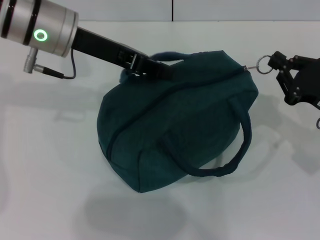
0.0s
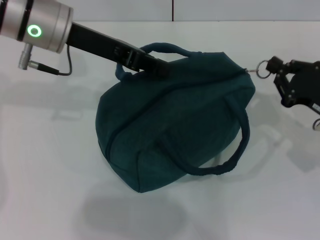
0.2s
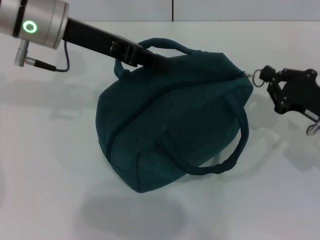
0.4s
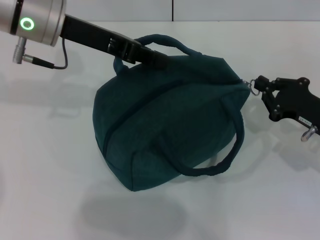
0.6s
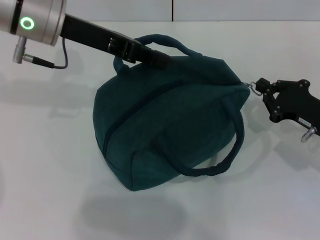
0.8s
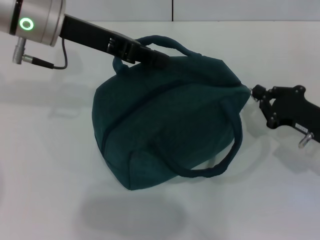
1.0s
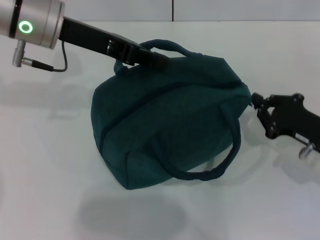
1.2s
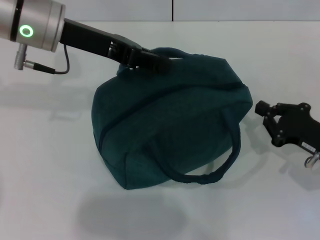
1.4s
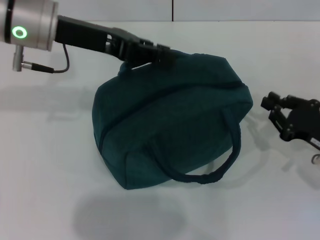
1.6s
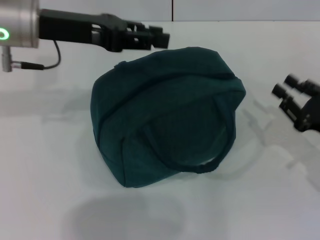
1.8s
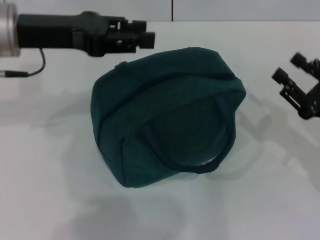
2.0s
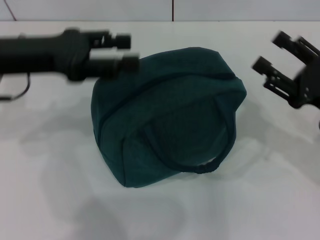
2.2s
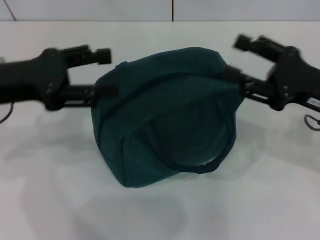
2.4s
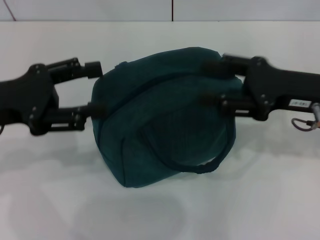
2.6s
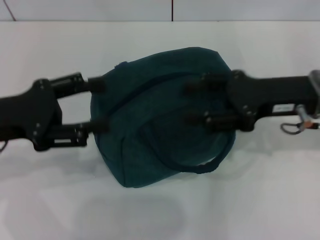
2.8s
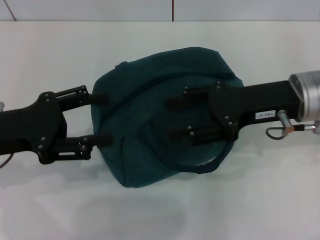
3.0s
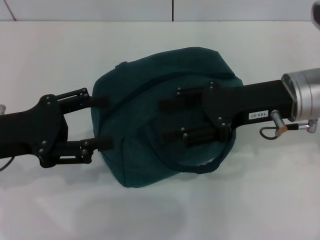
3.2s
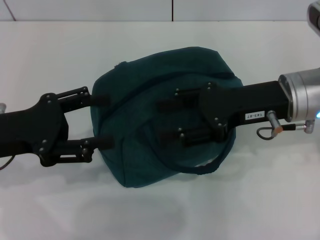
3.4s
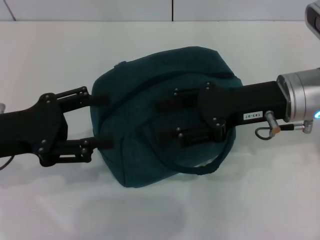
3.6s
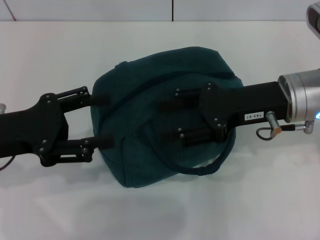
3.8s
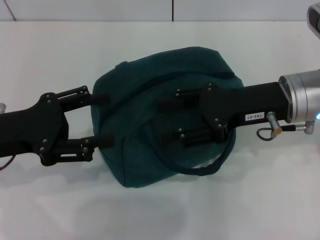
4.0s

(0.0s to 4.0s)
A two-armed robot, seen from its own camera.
0.0s - 1.4s: The right gripper shifts by roughly 5 cm.
1.4s - 2.6s: The left gripper is displaced backward and to the left by approximately 15 cm, and opens. Meanwhile the right gripper shifts approximately 15 cm upward and to the left, and opens.
2.6s - 4.0s: The right gripper is displaced to the left by roughly 5 cm.

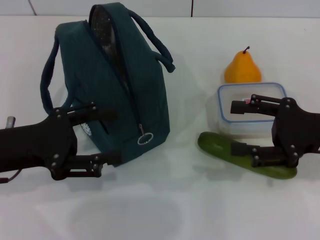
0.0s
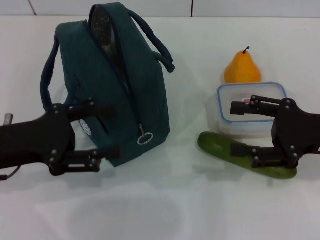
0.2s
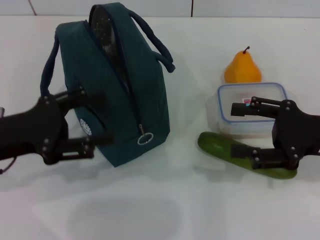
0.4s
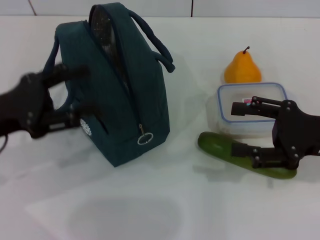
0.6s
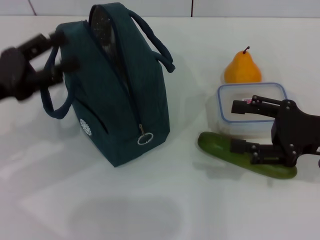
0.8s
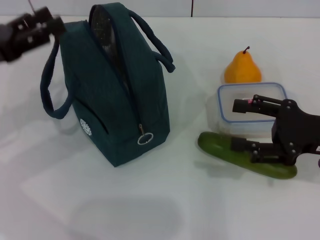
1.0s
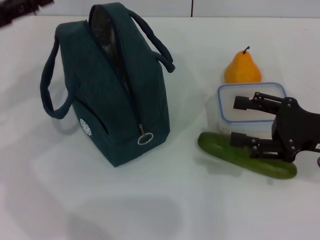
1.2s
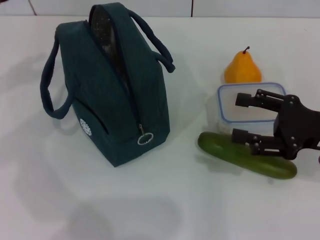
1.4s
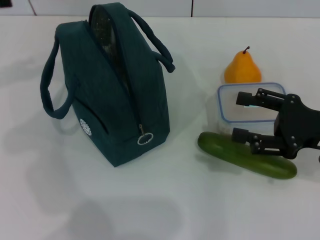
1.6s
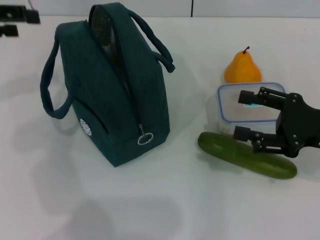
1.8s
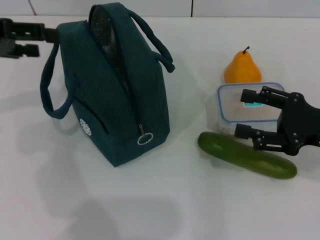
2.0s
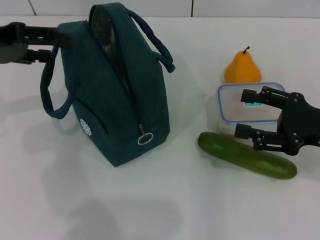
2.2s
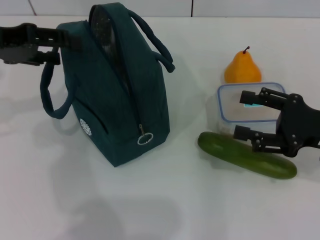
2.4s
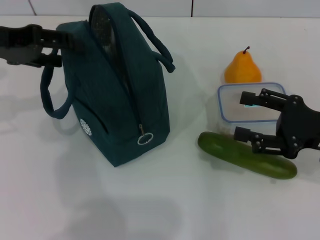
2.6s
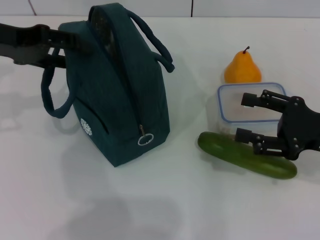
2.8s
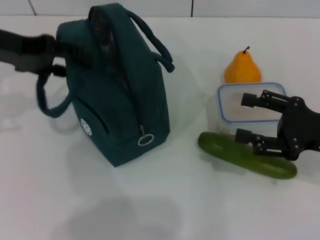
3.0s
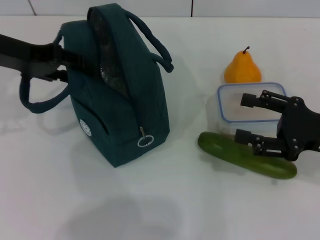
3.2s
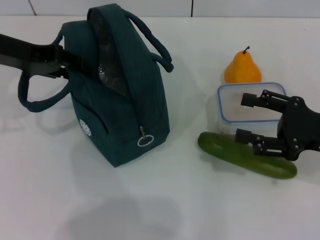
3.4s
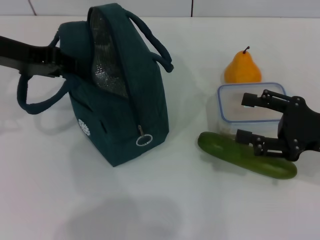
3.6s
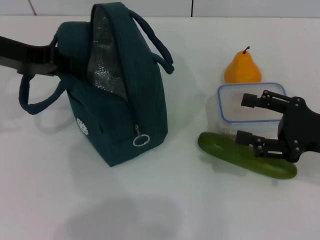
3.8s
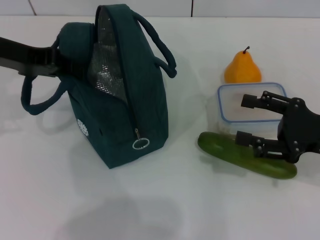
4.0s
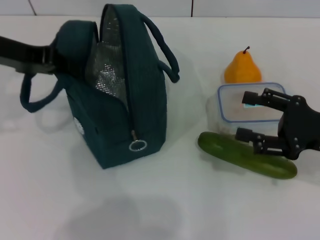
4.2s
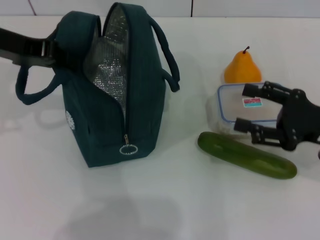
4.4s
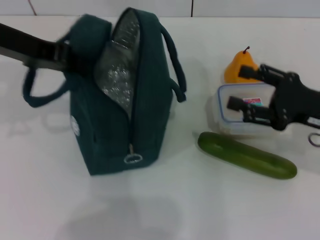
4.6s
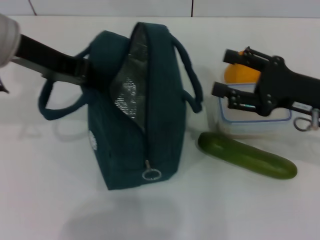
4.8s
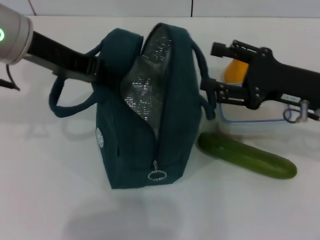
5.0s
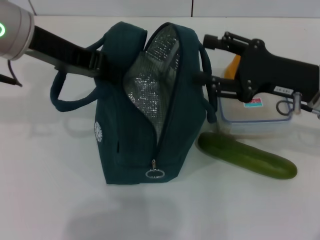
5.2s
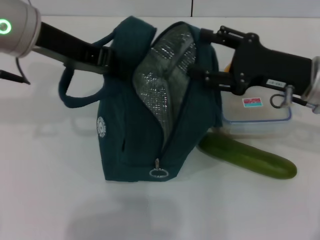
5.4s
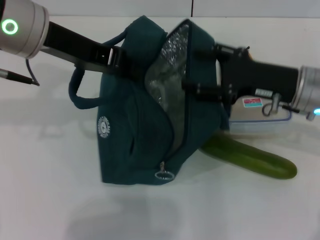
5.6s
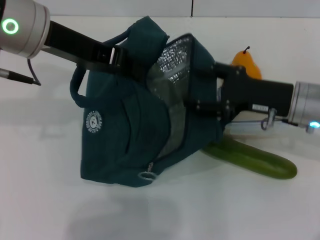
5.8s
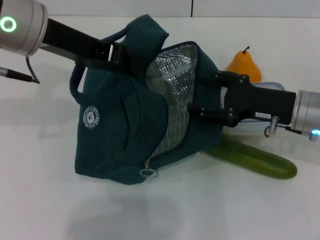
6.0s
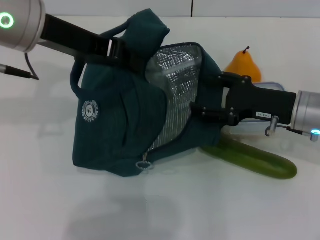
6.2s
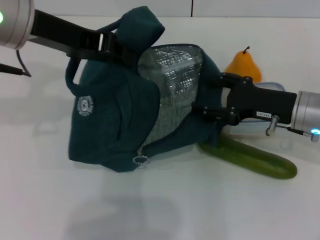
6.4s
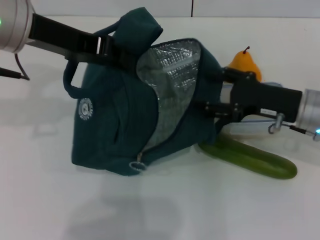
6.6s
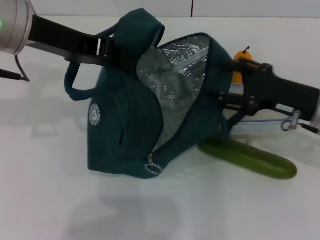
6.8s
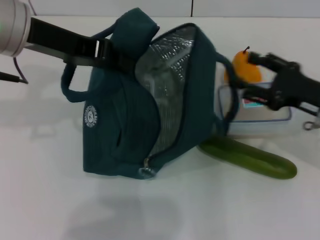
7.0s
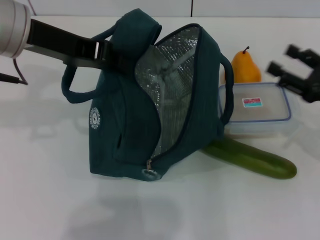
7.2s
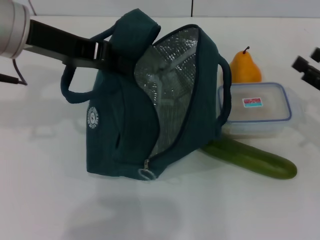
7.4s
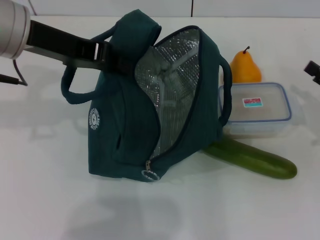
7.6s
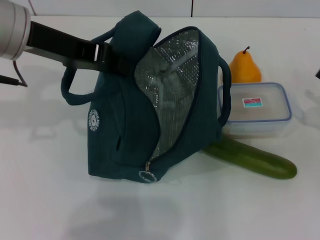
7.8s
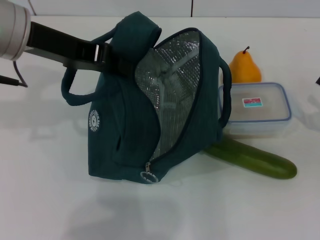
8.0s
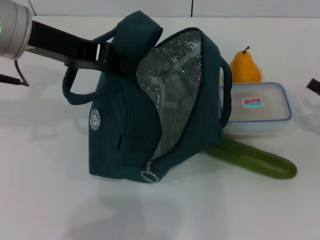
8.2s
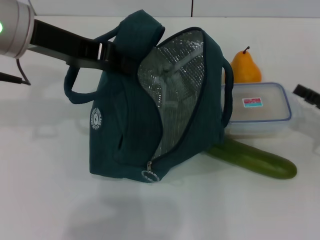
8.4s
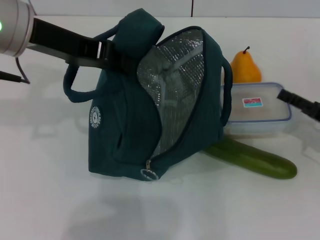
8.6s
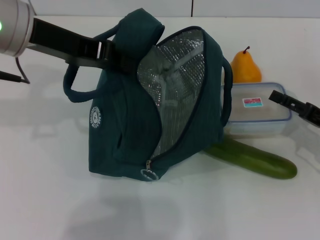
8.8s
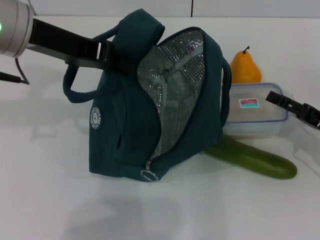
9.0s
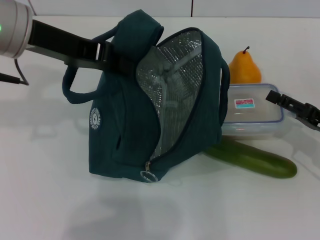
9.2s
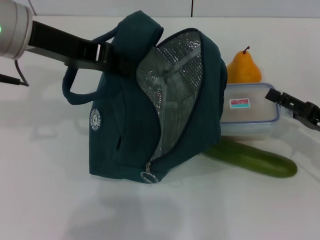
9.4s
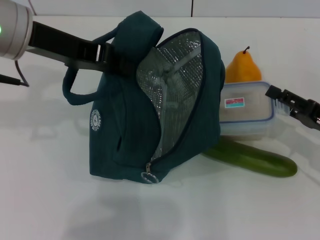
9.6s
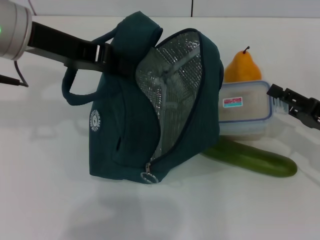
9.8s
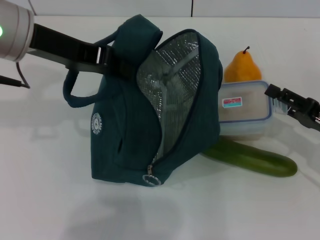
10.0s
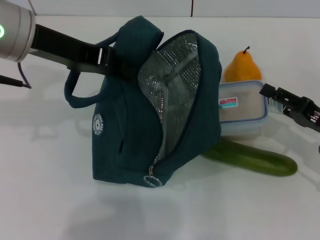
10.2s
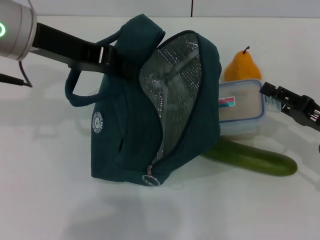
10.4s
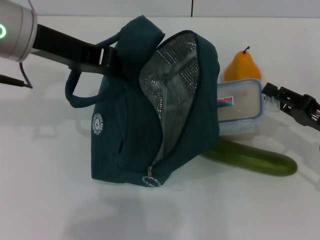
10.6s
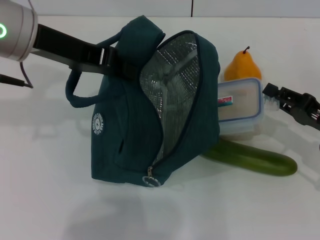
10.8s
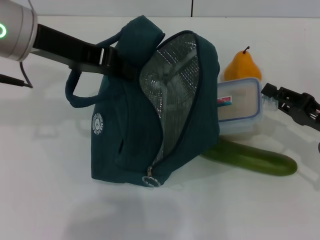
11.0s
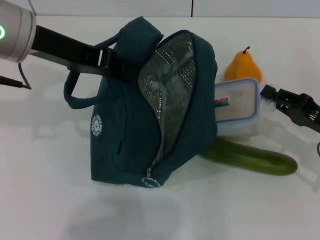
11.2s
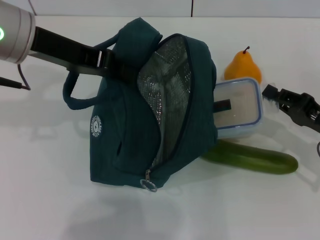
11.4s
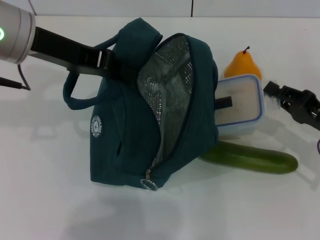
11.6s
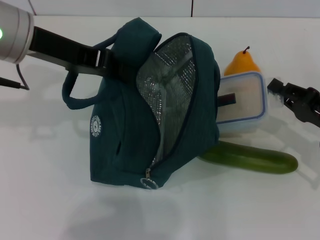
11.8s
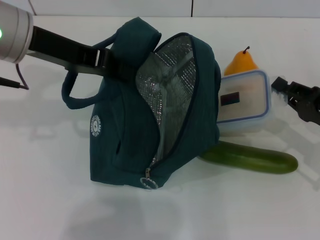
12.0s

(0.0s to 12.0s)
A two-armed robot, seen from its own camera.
Step, 0.0s - 7.0s: Hold the lunch bag with your left hand.
Step, 7.2s - 11.2s: Pick up the lunch box with your right hand.
0.0s - 1.6s: The left gripper shifts about 20 cm upward, forward and to the left.
1.6s - 3.0s: The left gripper moves to the right, about 5 cm.
3.0s - 4.4s: The left gripper closes up.
4.4s - 6.0s: The right gripper shifts about 10 cm to the left and forward, while the left gripper goes about 10 cm to the right.
6.0s - 7.6s: The right gripper travels to the right by approximately 15 cm.
9.0s - 10.4s: The grippers make only small movements.
10.4s - 12.0s: The right gripper closes.

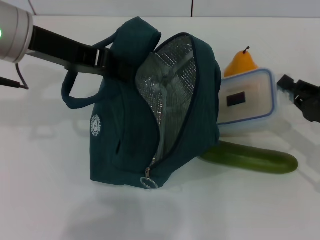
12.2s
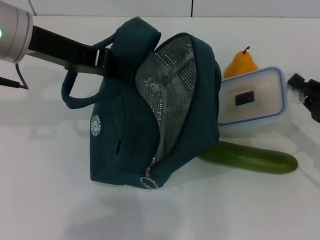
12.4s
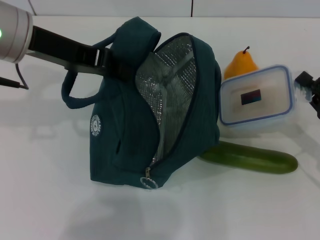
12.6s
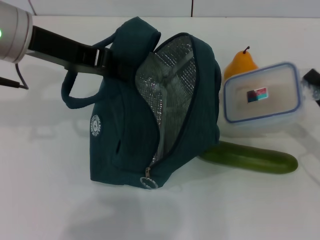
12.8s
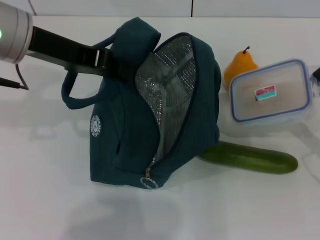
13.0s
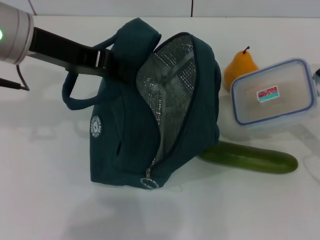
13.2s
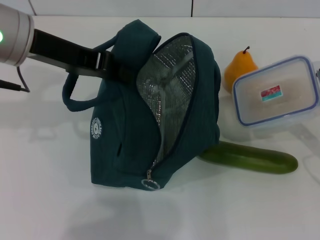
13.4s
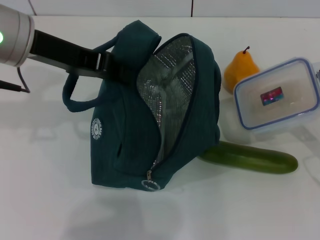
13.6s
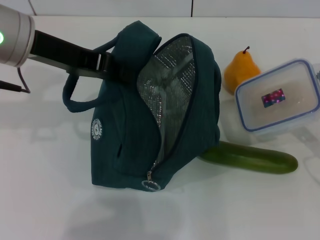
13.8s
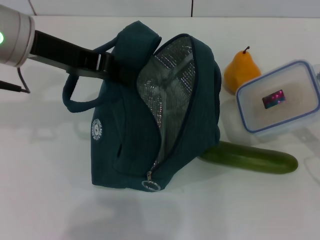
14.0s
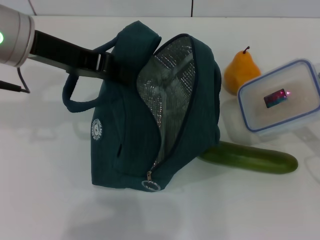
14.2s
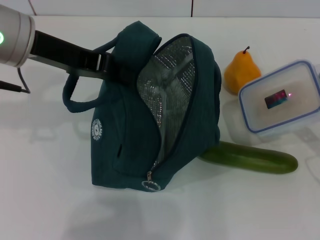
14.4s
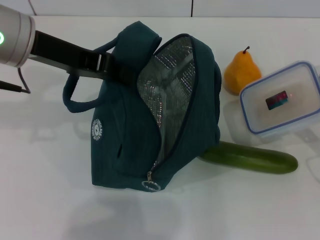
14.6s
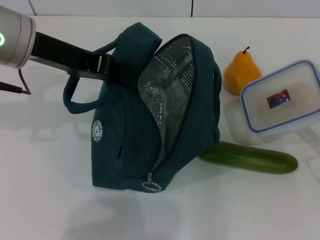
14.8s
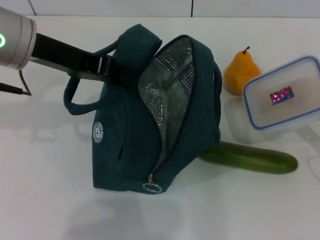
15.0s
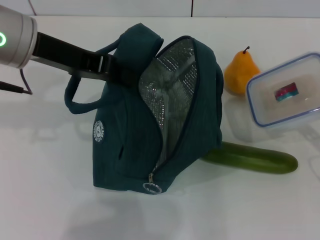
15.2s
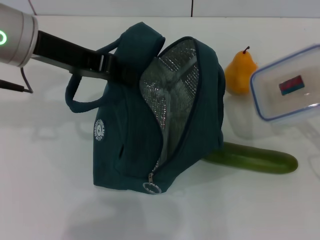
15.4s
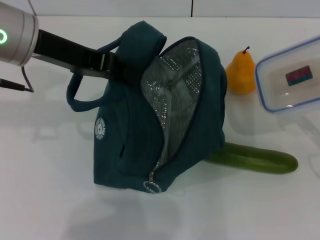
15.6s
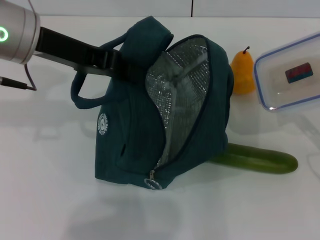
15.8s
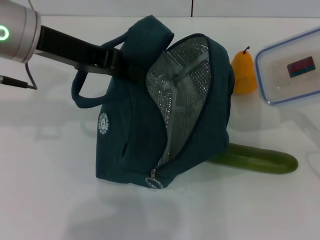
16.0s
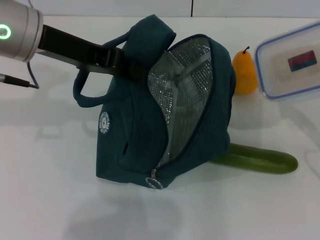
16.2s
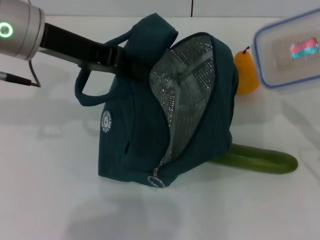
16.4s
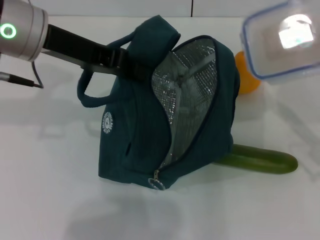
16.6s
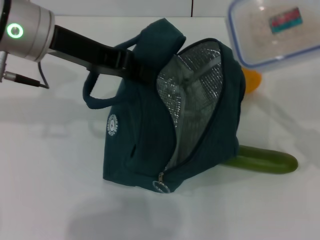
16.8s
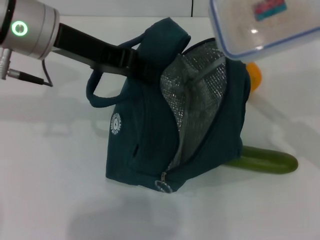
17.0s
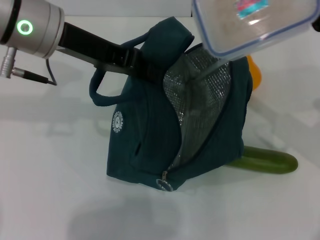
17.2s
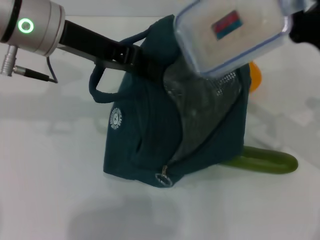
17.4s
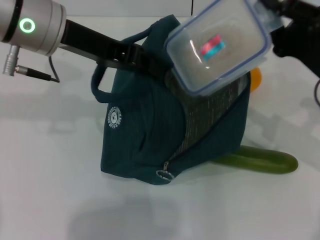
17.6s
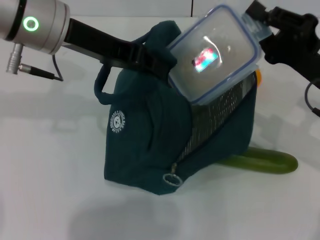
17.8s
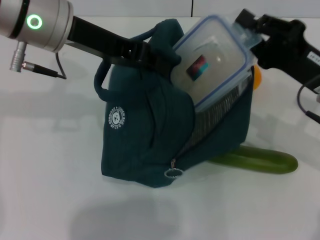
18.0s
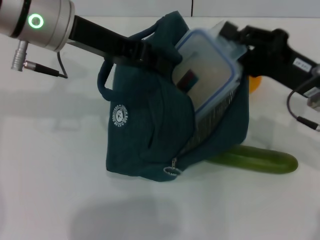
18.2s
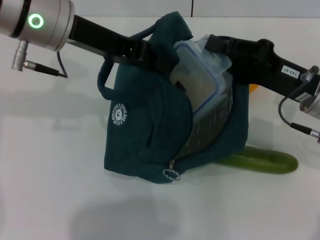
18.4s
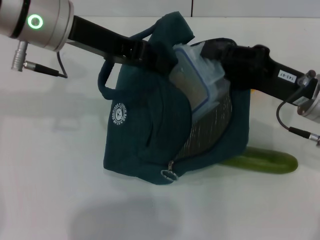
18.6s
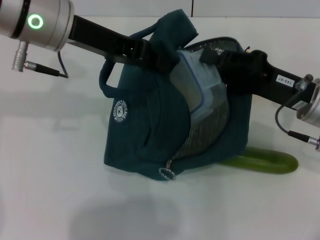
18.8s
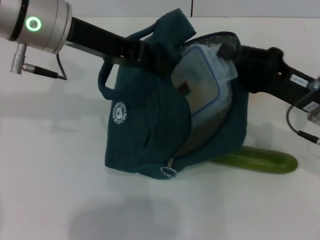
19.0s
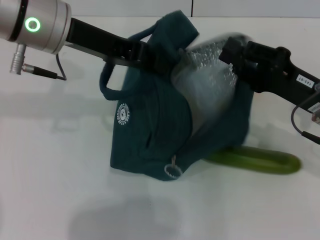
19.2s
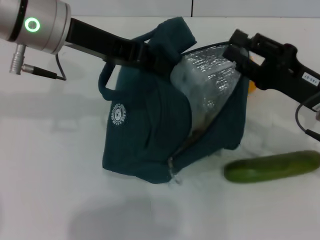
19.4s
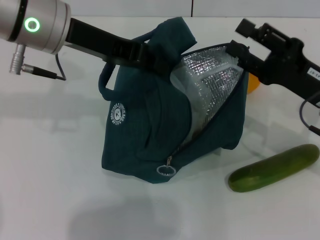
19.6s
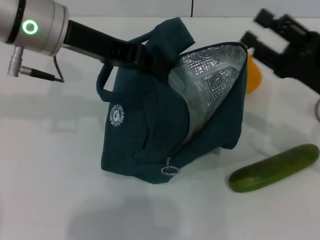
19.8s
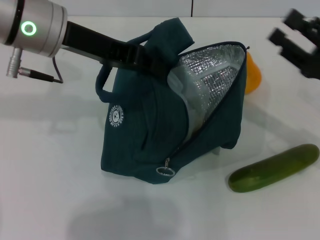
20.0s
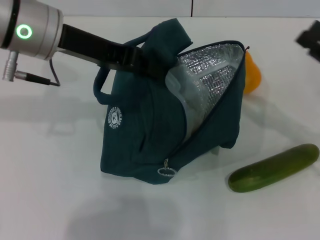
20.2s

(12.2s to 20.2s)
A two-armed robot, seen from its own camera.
Step, 12.2s - 19.2s: Place the lunch box into the lunch bag with your right hand.
12.2s - 13.8s: The grippers stay close to where they were, moving slightly.
13.8s - 15.4s: The grippers make only small movements.
15.4s - 17.0s: The right gripper shifts roughly 10 cm upward and to the left.
17.0s - 18.6s: The right gripper travels to the left by about 5 cm.
18.6s - 20.2s: The right gripper shifts approximately 10 cm to the right, and opens its fingers.
